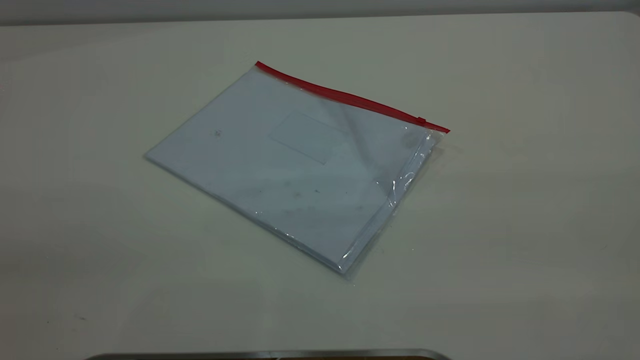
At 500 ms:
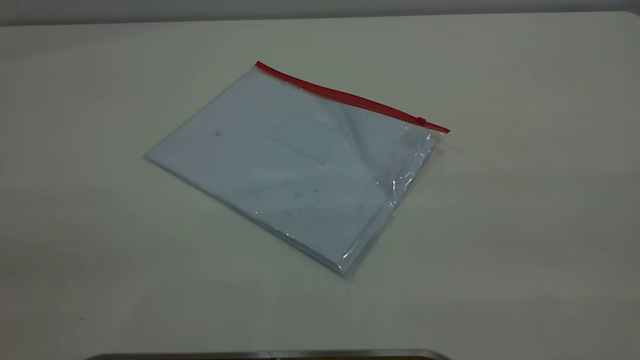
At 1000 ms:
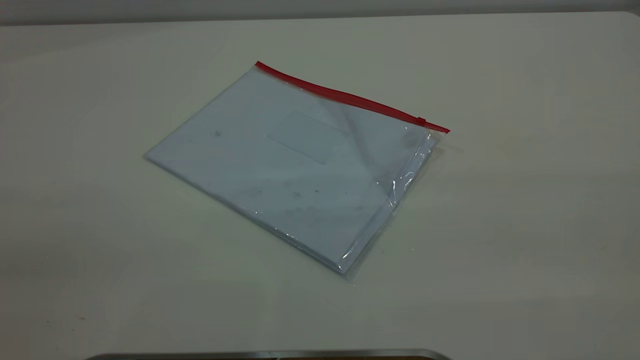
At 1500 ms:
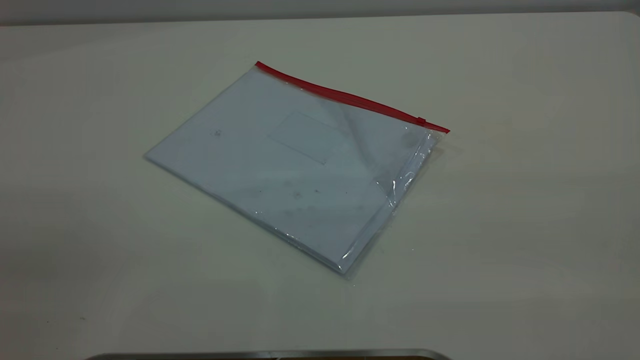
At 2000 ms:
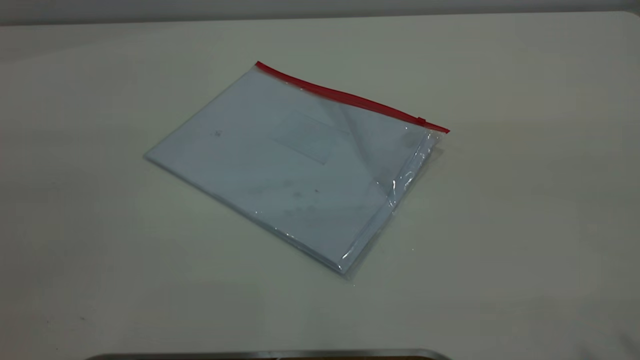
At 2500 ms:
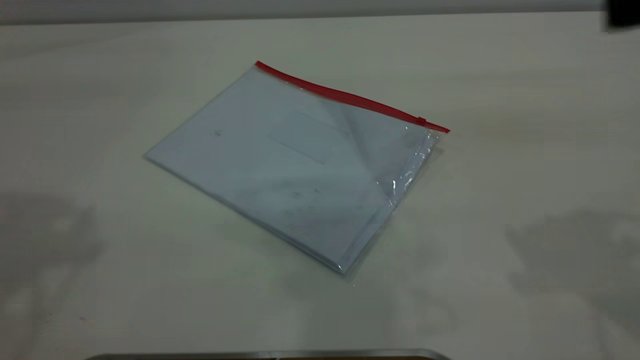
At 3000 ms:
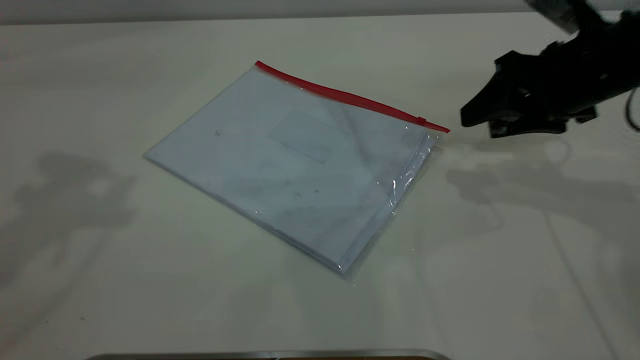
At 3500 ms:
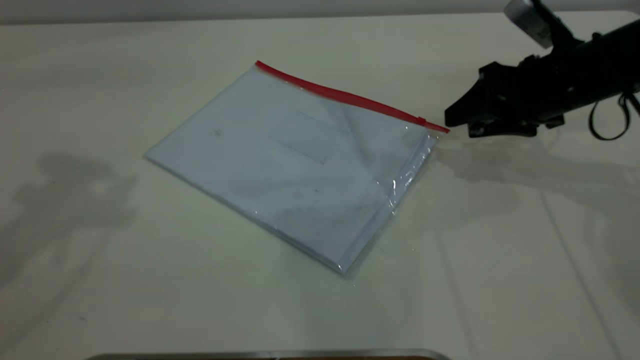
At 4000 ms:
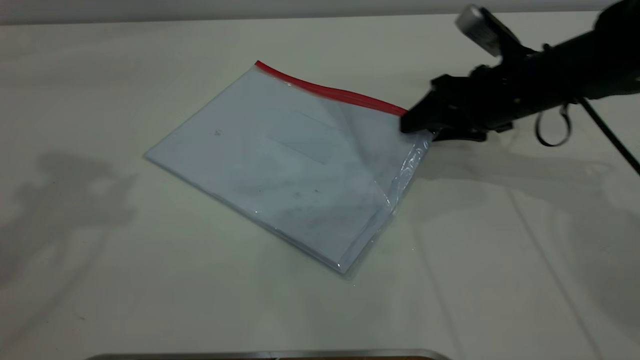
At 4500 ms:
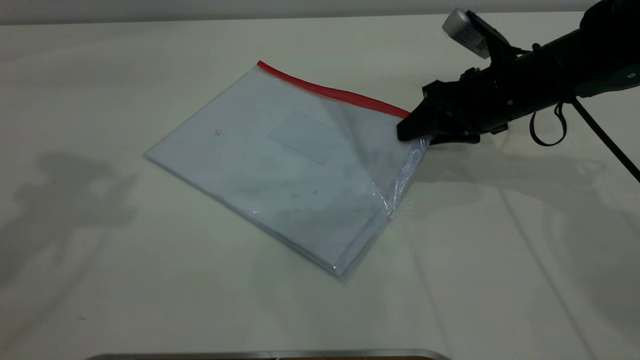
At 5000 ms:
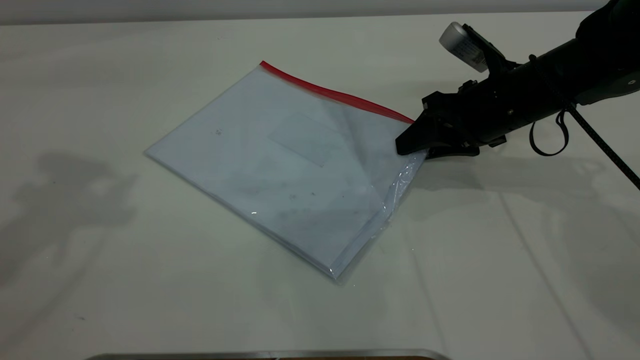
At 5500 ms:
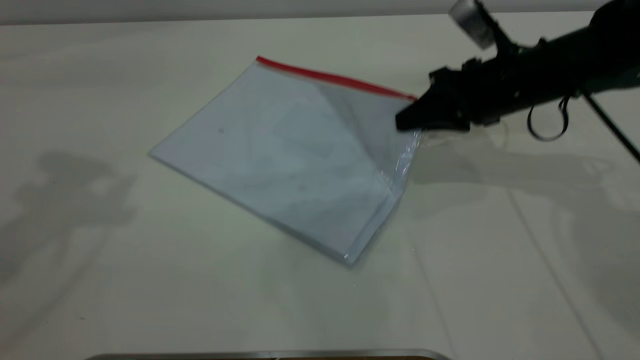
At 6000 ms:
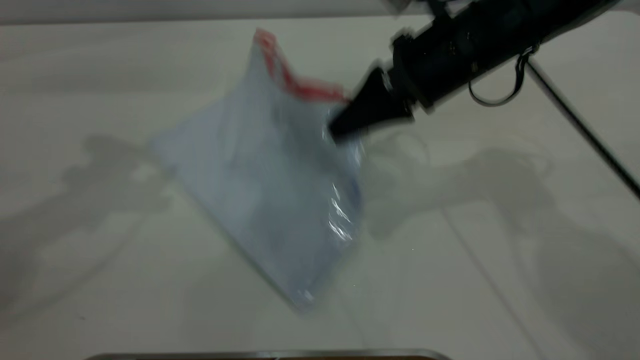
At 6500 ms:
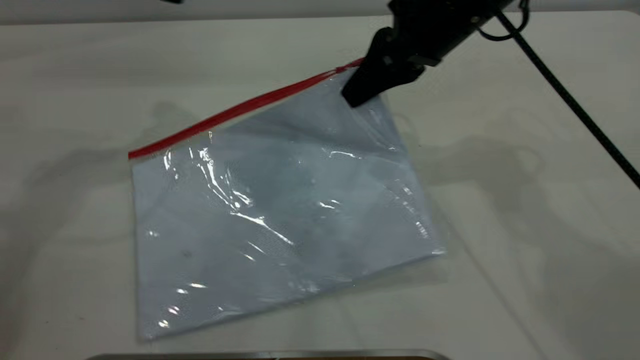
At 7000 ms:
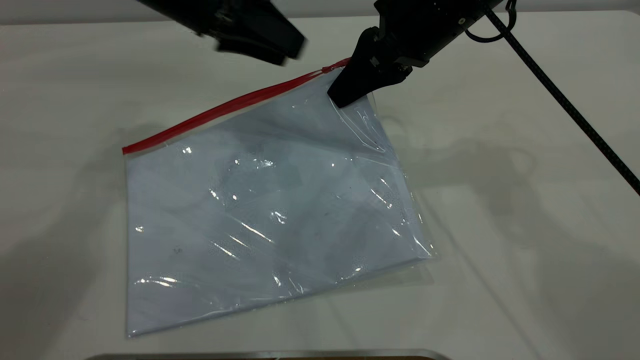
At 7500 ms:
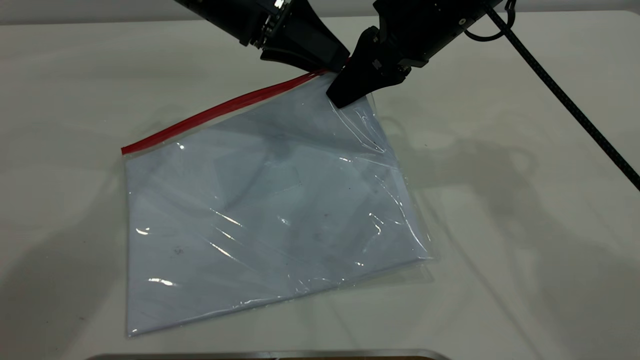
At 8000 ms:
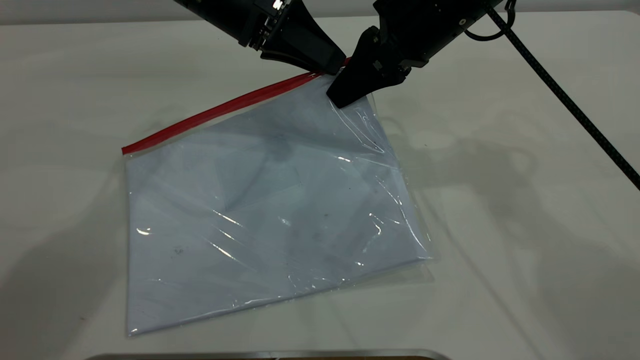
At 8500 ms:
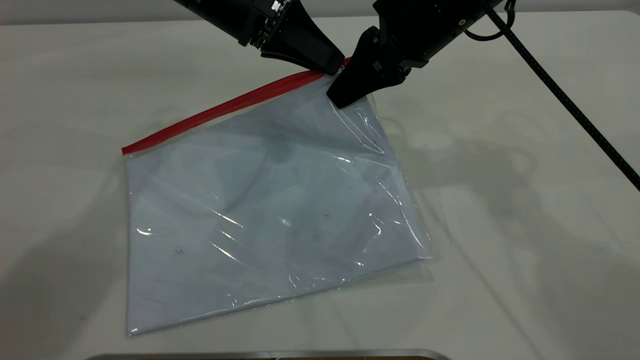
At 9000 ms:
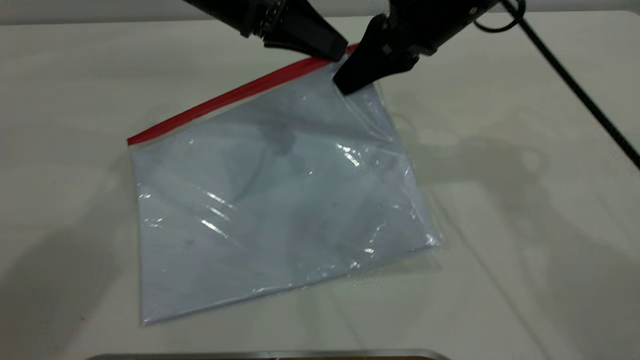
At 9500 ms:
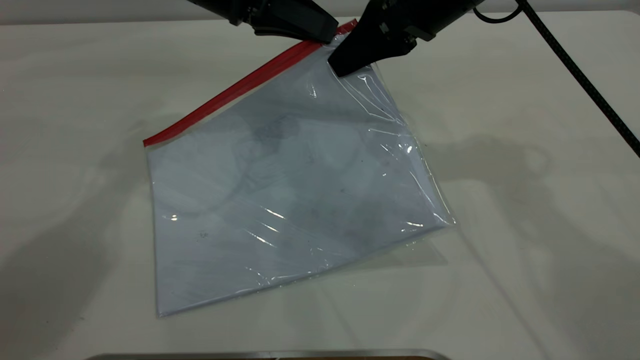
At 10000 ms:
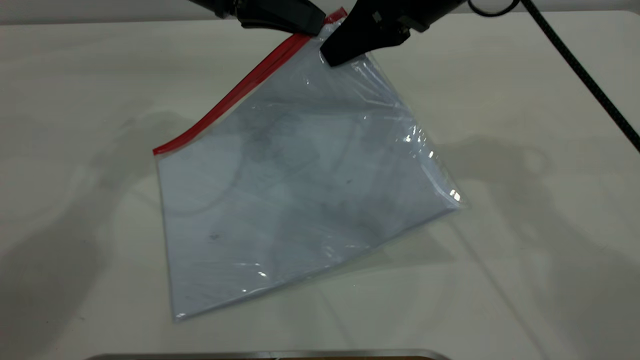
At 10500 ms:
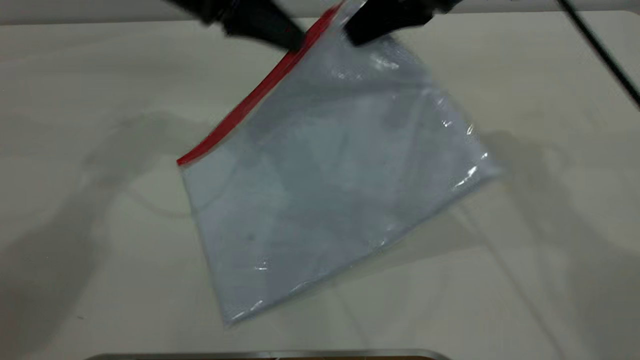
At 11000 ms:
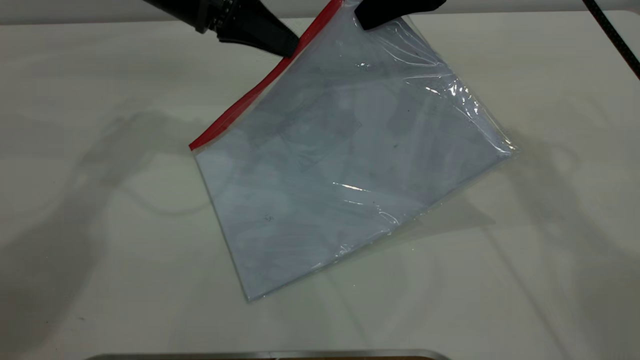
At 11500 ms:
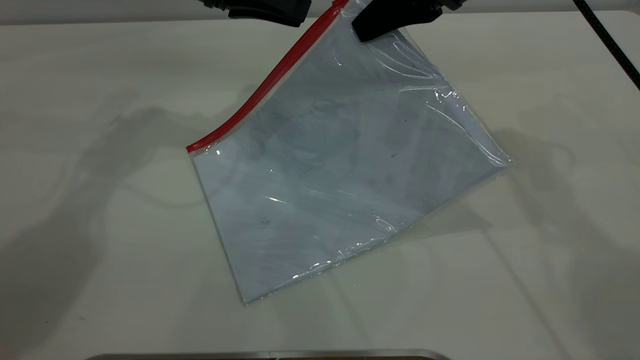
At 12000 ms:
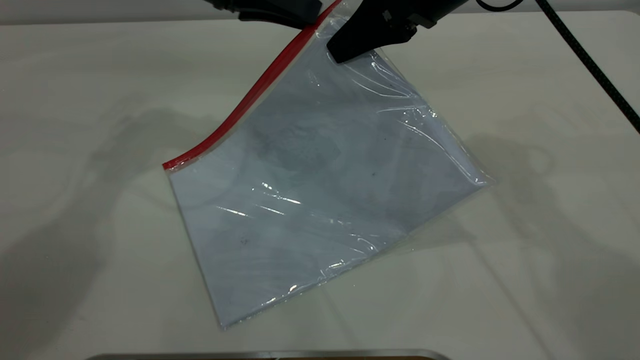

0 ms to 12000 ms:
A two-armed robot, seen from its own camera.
Step, 0 ms to 6000 ms: Pick up the transparent plastic bag with the right gripper.
2000 ms to 4000 ms: The right gripper shifts about 50 cm forward and downward. The left gripper goes roughly 25 cm forward.
4000 ms to 6000 ms: The right gripper is displaced to the left and upward by approximately 10 cm, and closes up. The left gripper travels downward by some 5 cm.
6000 ms to 8000 ms: The right gripper ends up about 5 cm from where it was. The left gripper heads to the right, downward and forward, covering some 20 cm, and closes up.
8000 ms to 10000 ms: The left gripper closes up.
10000 ms to 12000 ms: The left gripper opens.

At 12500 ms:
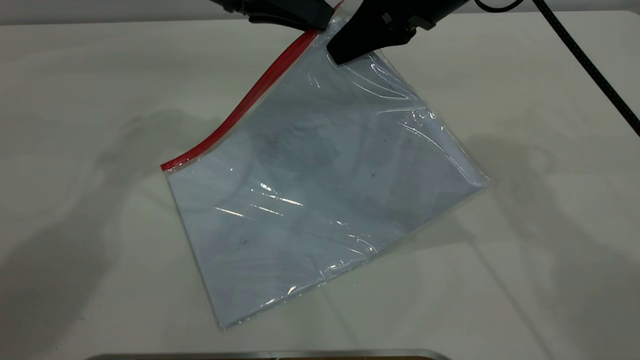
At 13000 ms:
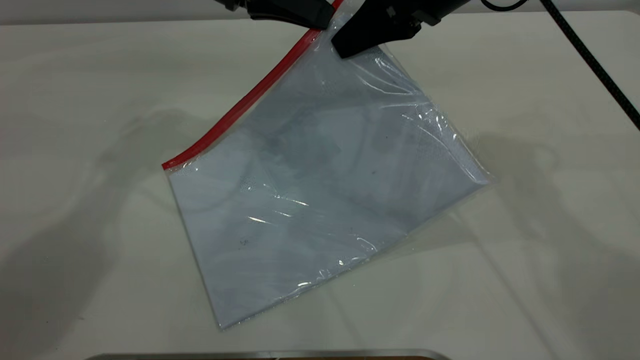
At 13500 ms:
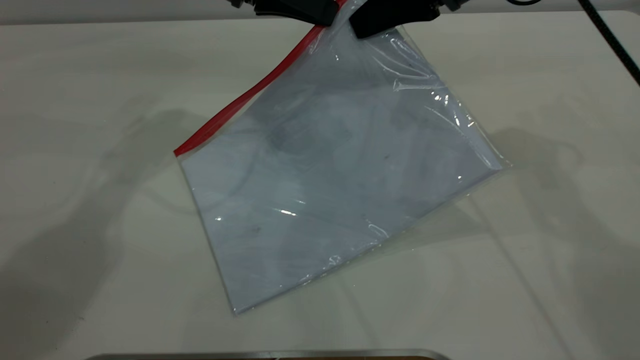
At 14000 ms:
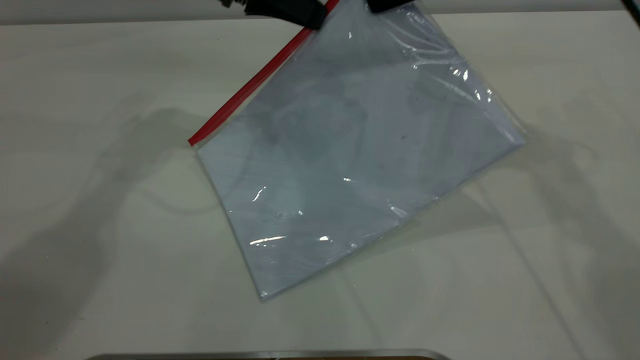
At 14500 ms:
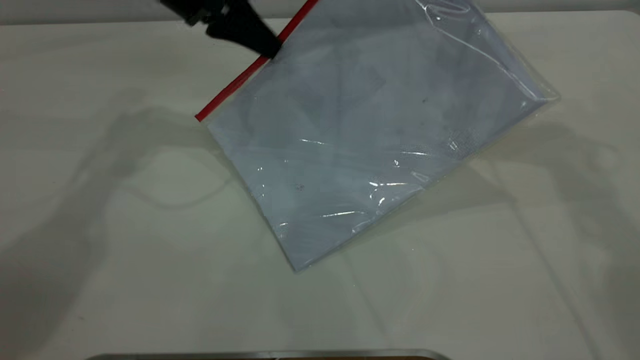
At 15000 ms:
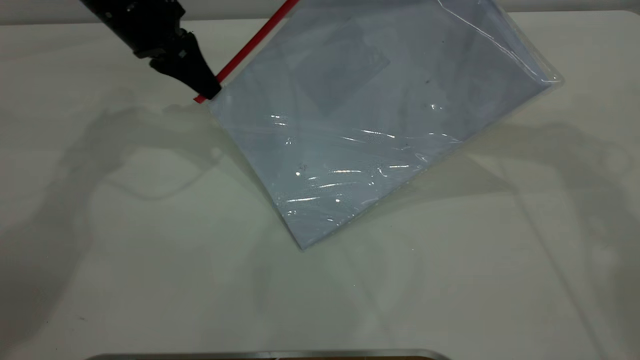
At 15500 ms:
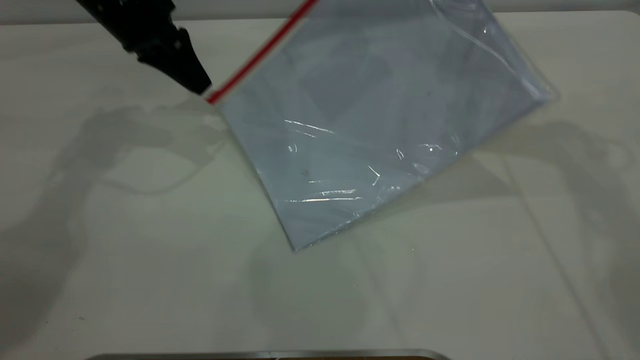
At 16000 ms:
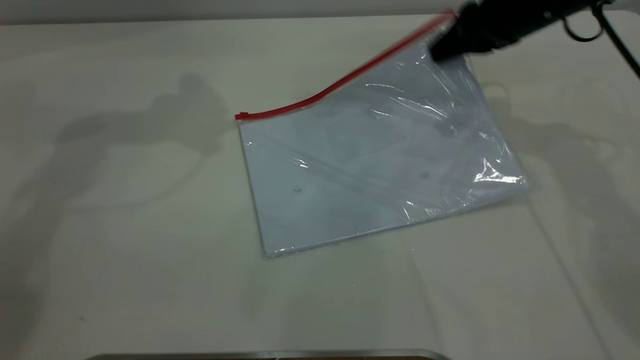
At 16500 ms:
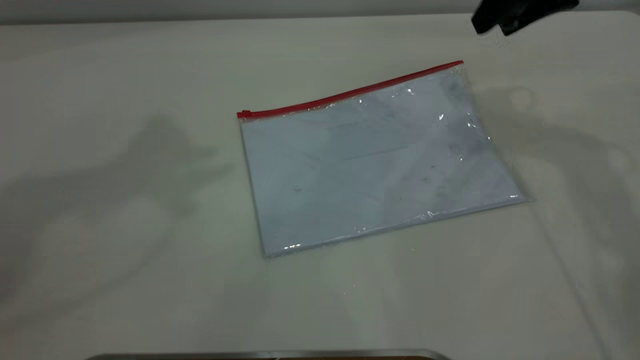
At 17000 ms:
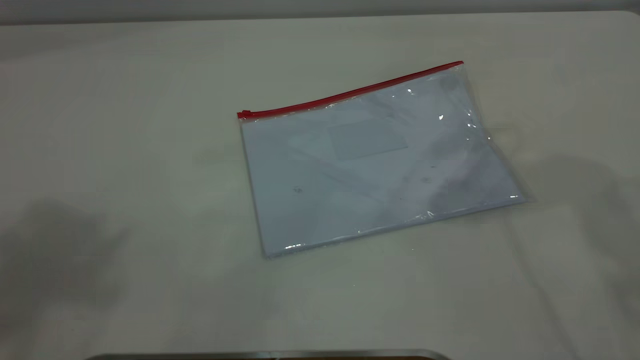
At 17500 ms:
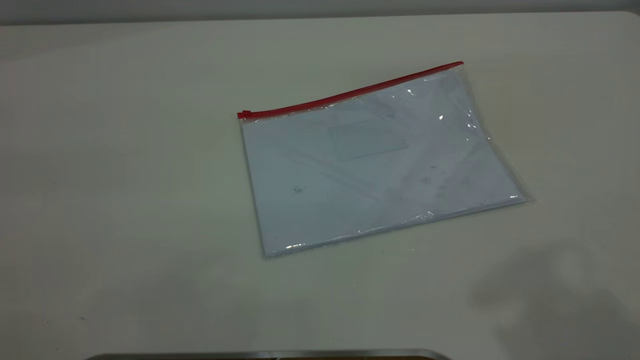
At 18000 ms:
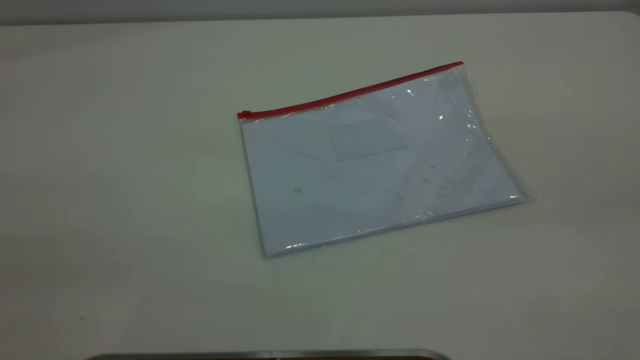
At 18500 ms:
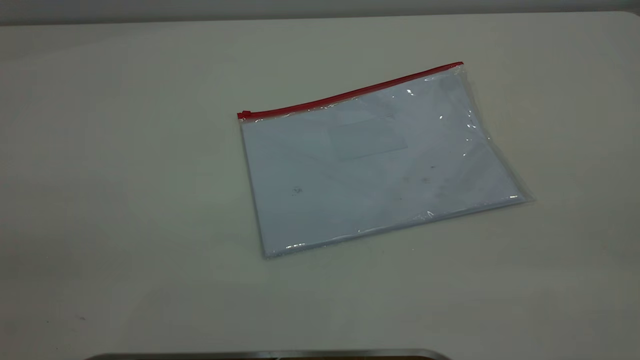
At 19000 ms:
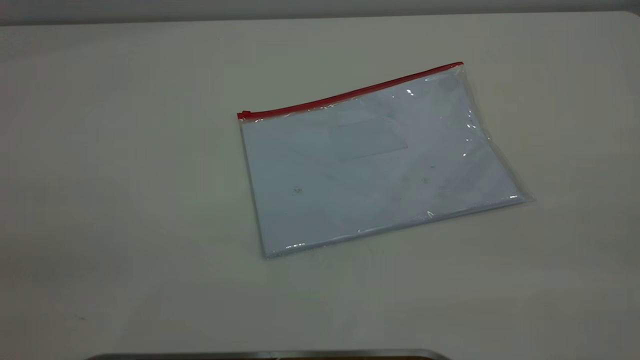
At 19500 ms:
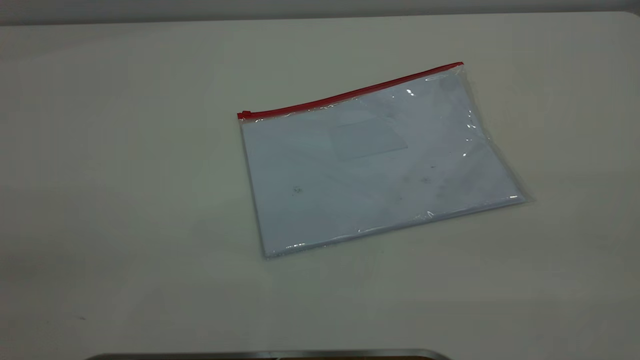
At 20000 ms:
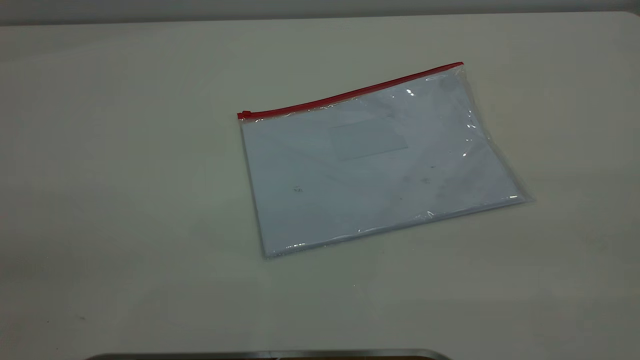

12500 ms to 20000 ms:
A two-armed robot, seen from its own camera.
Step, 12500 ms to 15500 ms: Pulling up the zipper on the transparent plastic bag with the left gripper to close it.
Step, 16000 ms to 16500 ms: Place the transparent plastic bag.
12500 ms to 14500 ms: The left gripper changes place by approximately 5 cm, while the right gripper goes some 5 cm to the right.
14500 ms to 16500 ms: The left gripper is displaced upward by approximately 30 cm, and opens its fingers. The right gripper reaches approximately 10 cm downward, then returns, and opens its fingers.
16500 ms to 18000 ms: The right gripper goes roughly 40 cm backward and upward.
